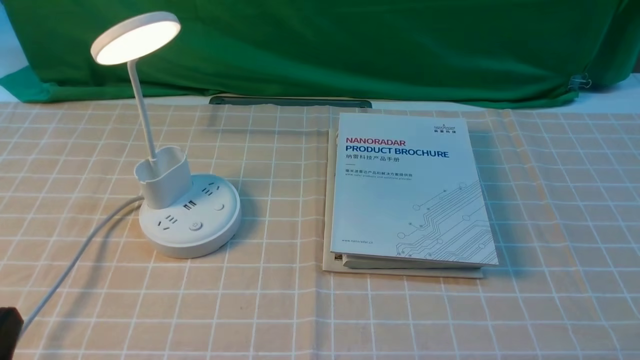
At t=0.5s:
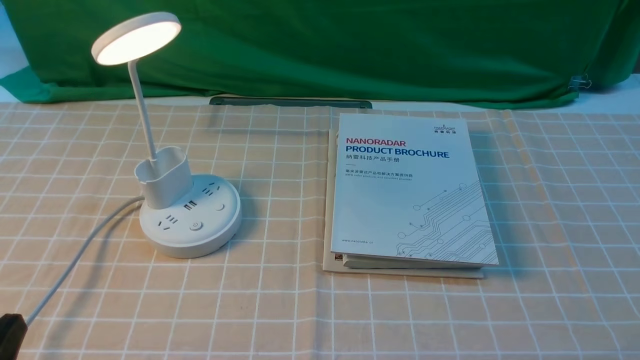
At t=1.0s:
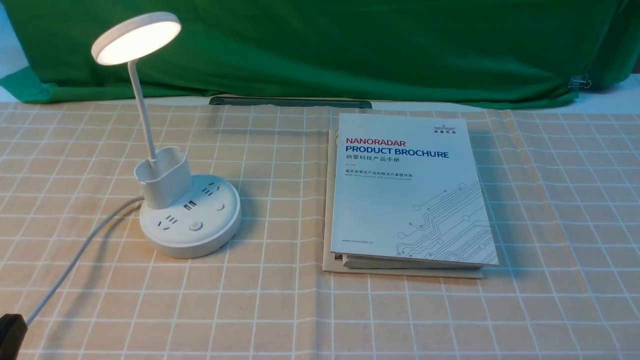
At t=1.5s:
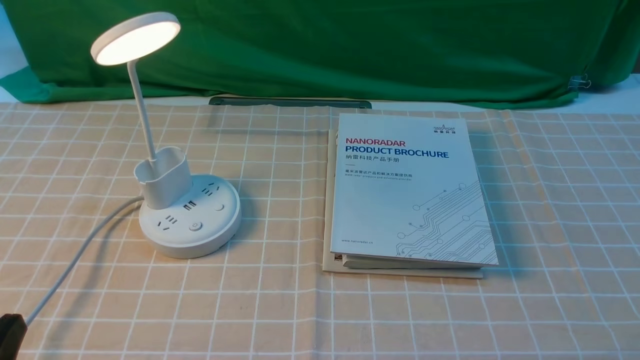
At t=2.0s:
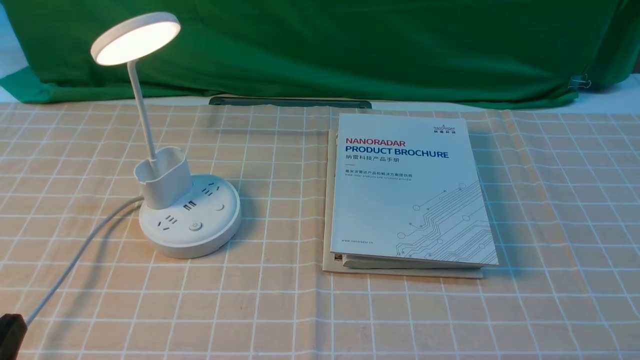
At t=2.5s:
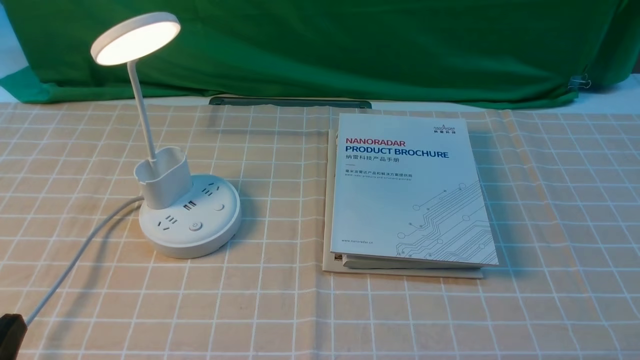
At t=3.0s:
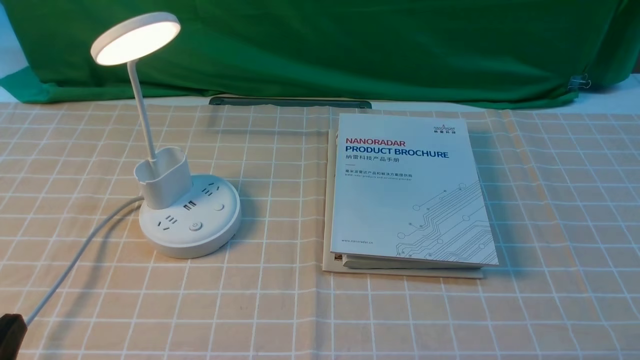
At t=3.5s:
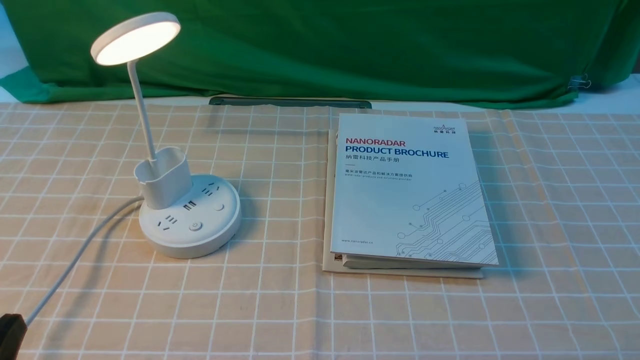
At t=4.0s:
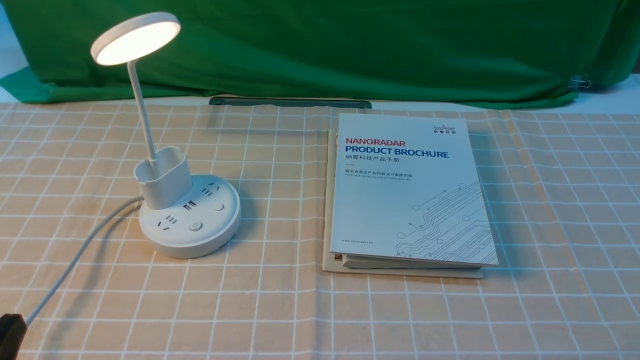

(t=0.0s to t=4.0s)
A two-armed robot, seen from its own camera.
t=0.0s - t=4.0s: The two grippers keep their place.
